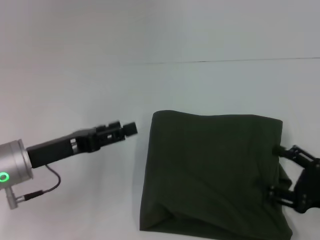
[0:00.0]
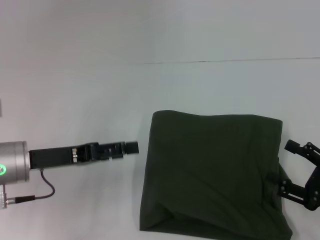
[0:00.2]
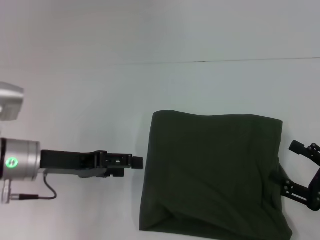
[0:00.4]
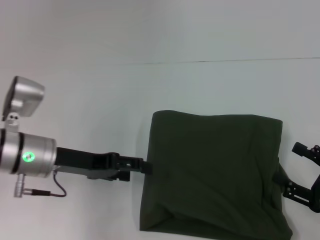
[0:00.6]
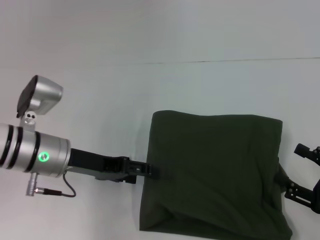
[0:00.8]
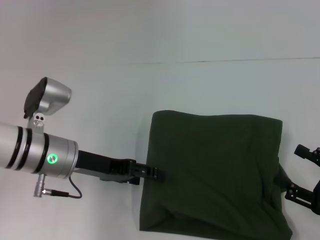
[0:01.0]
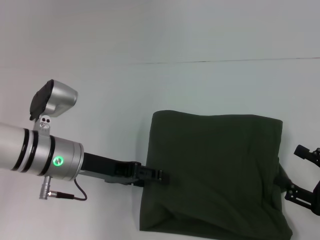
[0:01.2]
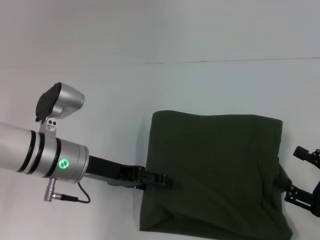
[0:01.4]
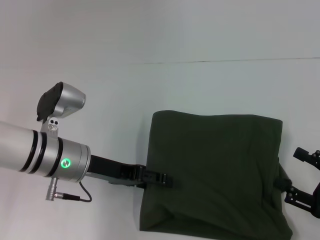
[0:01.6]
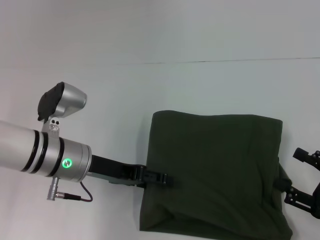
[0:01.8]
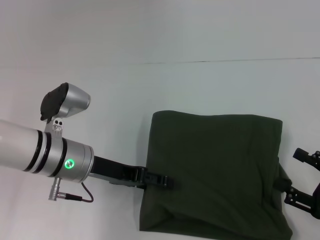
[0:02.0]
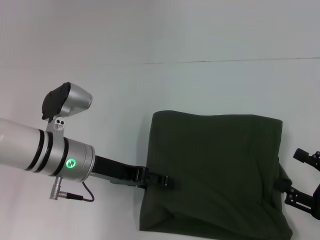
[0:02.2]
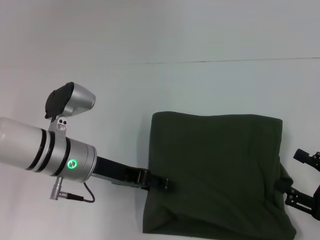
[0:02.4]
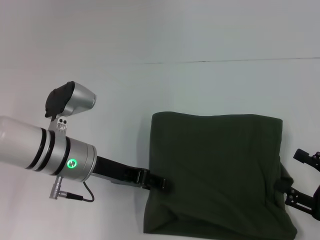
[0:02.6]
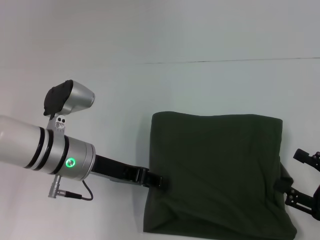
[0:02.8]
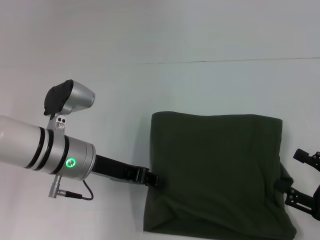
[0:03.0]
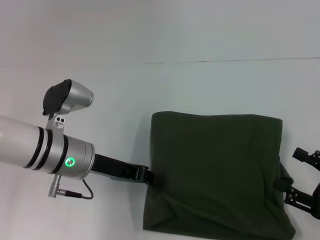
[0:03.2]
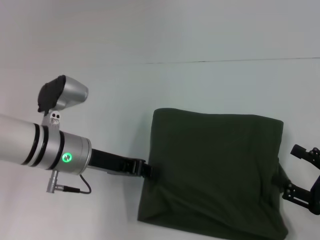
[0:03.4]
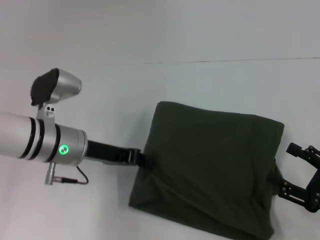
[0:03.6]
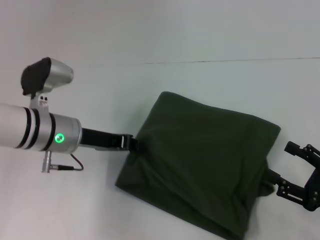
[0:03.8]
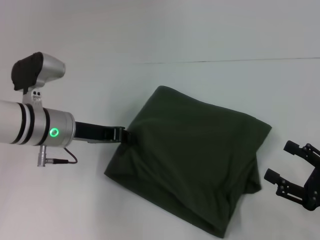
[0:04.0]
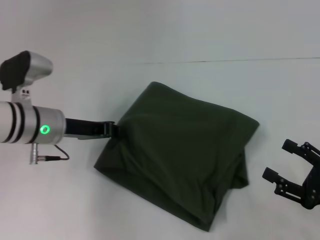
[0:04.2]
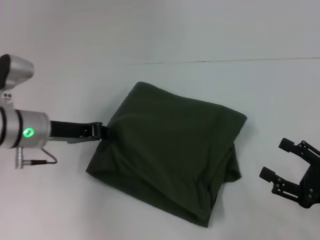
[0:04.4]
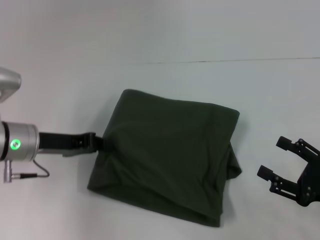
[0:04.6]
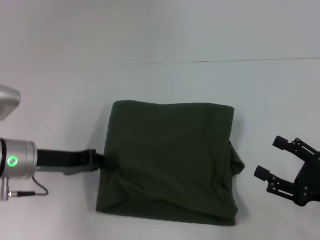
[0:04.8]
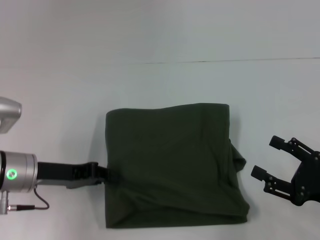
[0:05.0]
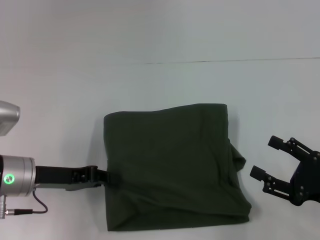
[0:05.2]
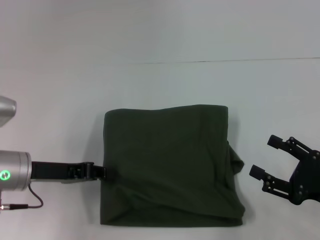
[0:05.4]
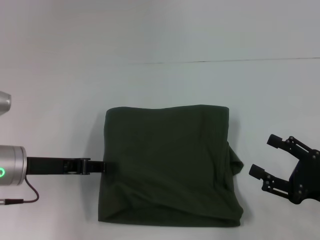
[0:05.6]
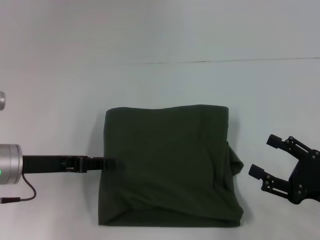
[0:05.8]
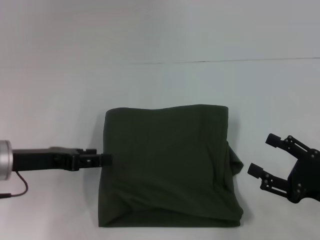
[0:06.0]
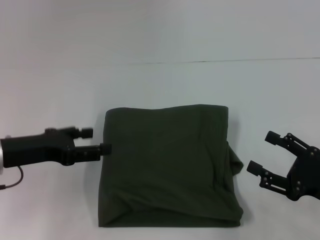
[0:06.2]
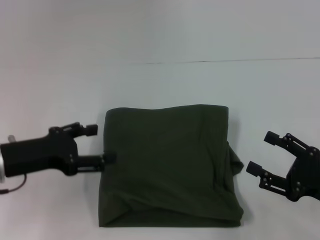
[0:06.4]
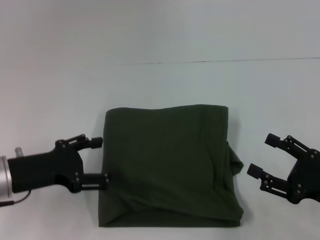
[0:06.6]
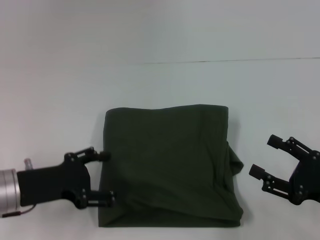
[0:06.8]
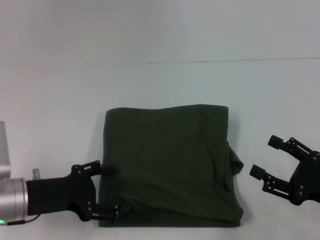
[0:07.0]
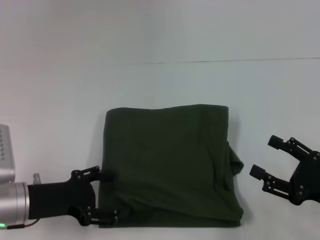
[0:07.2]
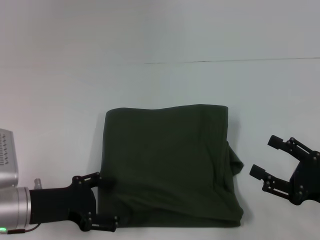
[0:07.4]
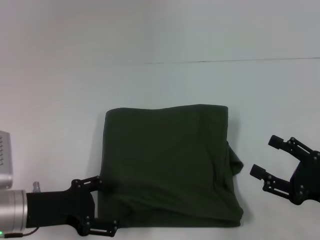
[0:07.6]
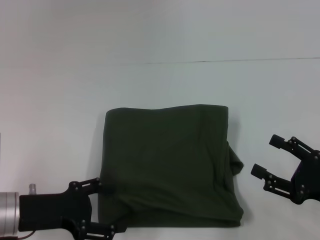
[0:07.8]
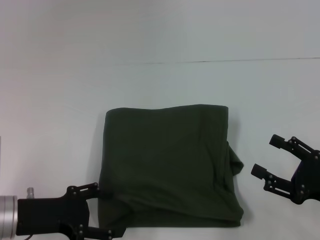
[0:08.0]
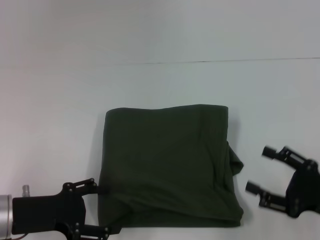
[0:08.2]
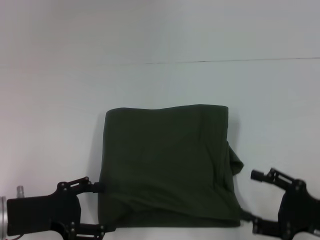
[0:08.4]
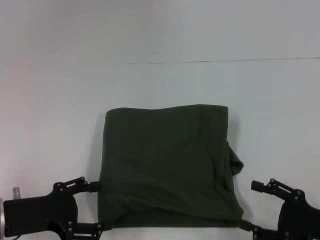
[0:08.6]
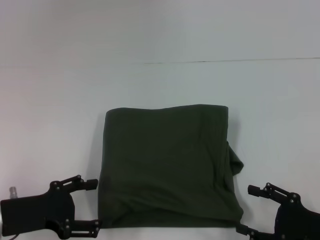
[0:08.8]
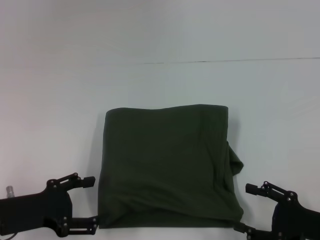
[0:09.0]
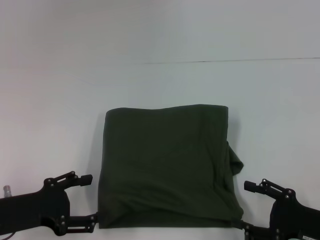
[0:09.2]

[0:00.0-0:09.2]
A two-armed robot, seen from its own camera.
0.0 to 1.6 s: The left gripper travels to the right by some 5 cm.
1.6 to 3.0 s: The left gripper closes.
3.0 to 4.6 s: The left gripper shifts some 10 cm to the left.
4.6 to 6.2 s: The left gripper moves approximately 5 cm, and opens.
6.2 to 7.6 s: The left gripper is displaced downward by about 5 cm.
7.6 to 9.2 s: The grippers stay close to where they were, moving slightly.

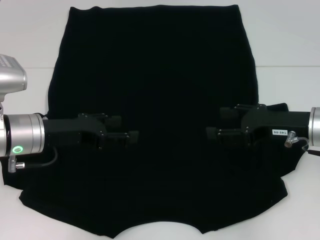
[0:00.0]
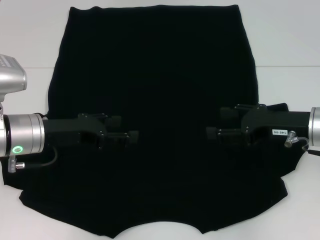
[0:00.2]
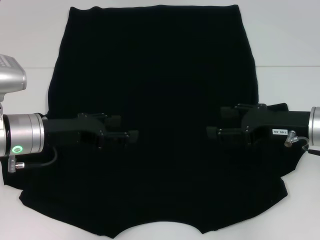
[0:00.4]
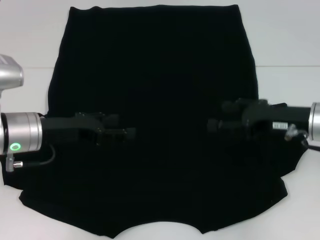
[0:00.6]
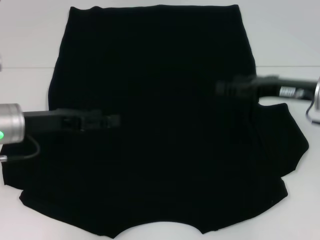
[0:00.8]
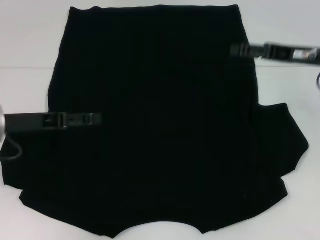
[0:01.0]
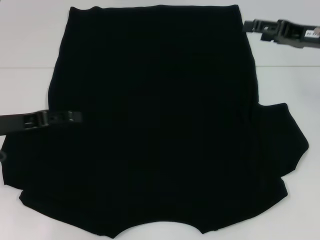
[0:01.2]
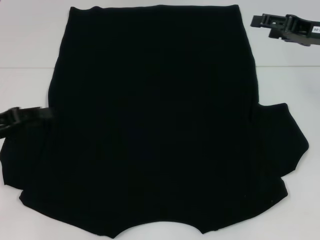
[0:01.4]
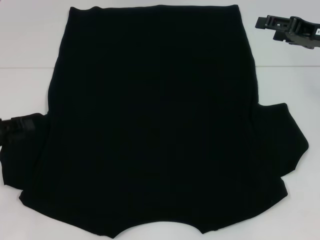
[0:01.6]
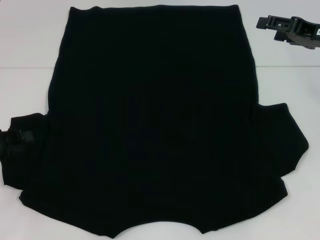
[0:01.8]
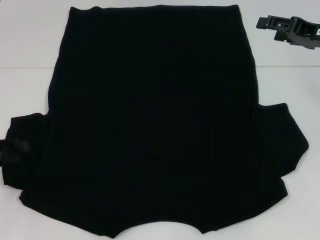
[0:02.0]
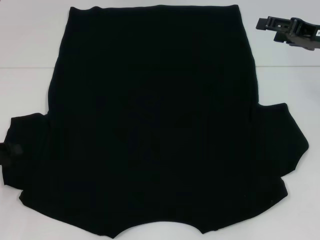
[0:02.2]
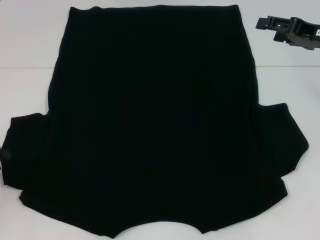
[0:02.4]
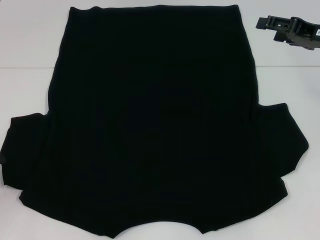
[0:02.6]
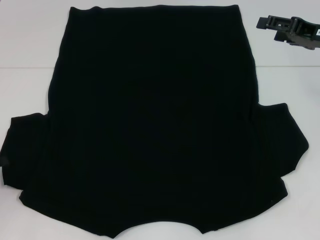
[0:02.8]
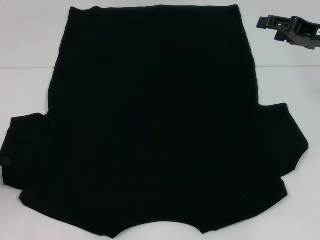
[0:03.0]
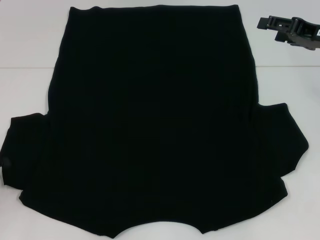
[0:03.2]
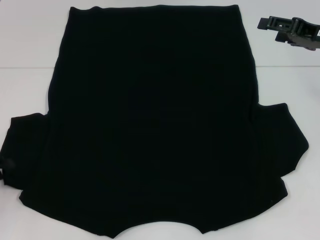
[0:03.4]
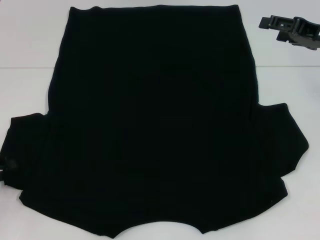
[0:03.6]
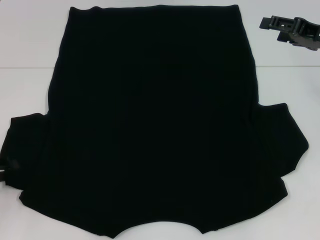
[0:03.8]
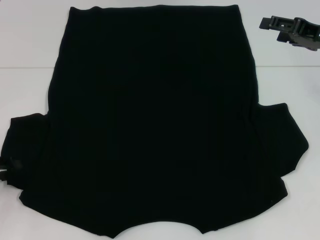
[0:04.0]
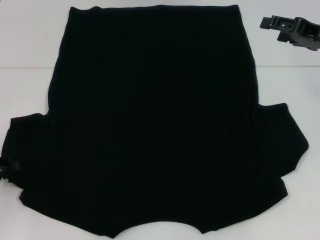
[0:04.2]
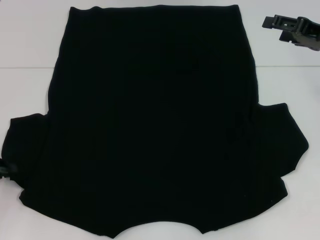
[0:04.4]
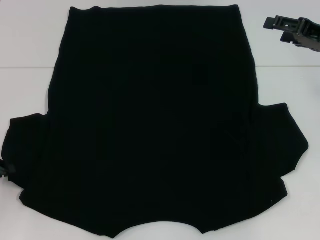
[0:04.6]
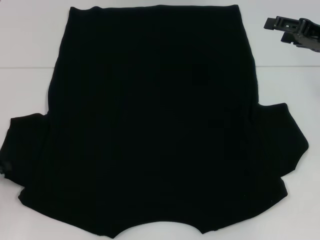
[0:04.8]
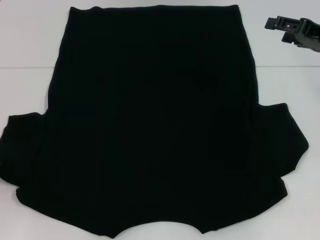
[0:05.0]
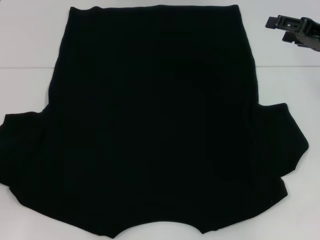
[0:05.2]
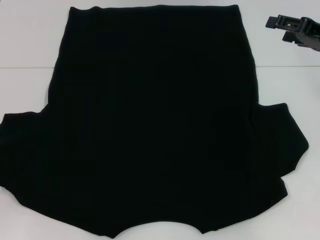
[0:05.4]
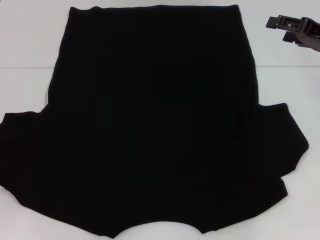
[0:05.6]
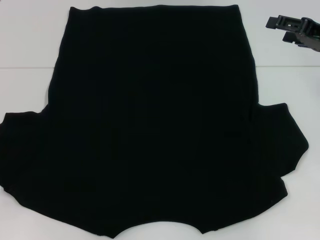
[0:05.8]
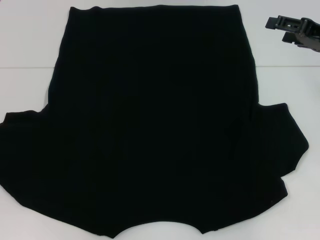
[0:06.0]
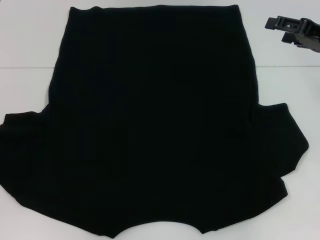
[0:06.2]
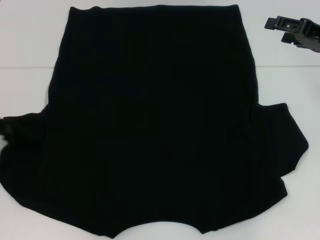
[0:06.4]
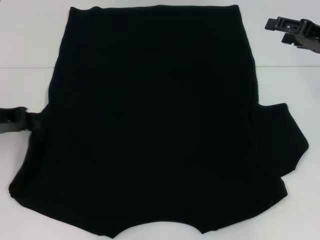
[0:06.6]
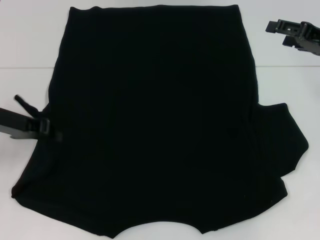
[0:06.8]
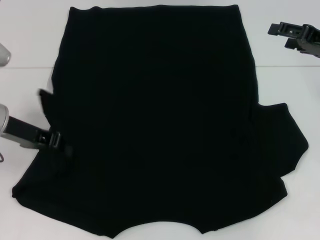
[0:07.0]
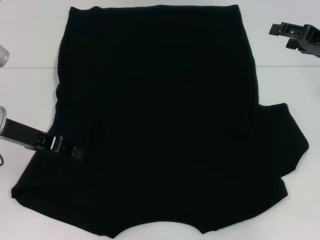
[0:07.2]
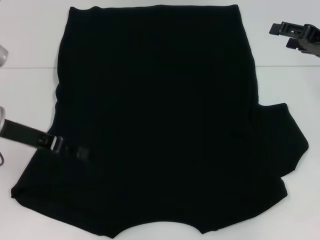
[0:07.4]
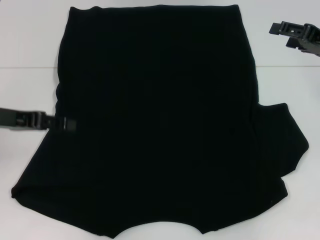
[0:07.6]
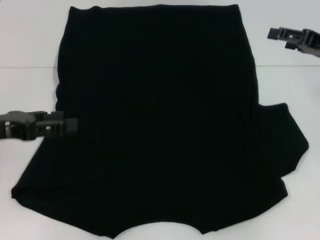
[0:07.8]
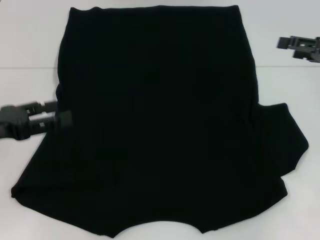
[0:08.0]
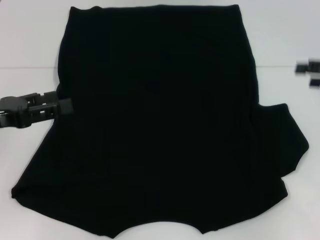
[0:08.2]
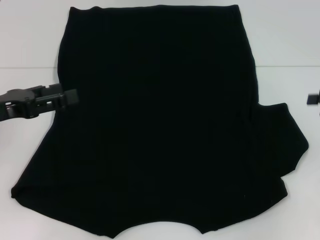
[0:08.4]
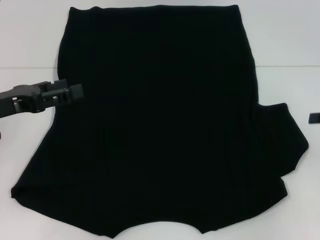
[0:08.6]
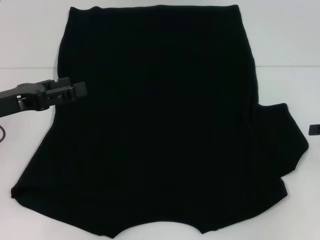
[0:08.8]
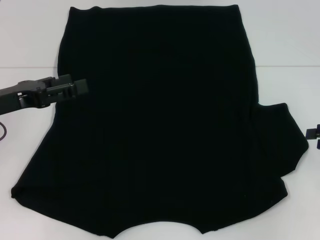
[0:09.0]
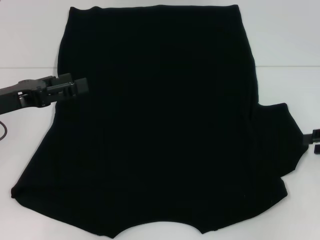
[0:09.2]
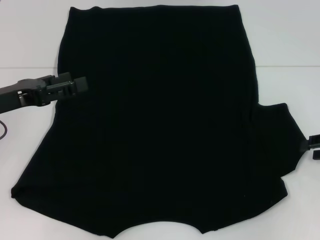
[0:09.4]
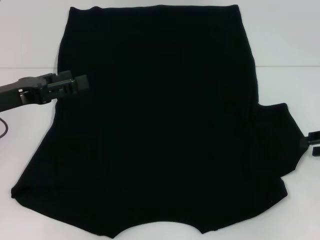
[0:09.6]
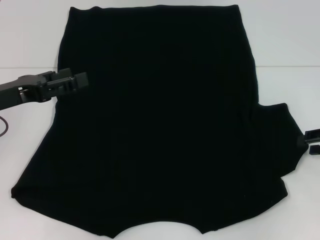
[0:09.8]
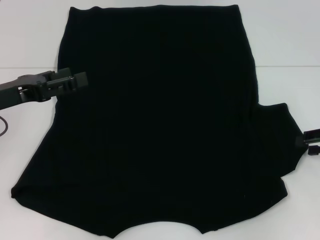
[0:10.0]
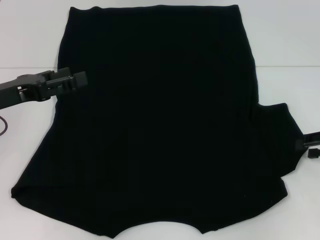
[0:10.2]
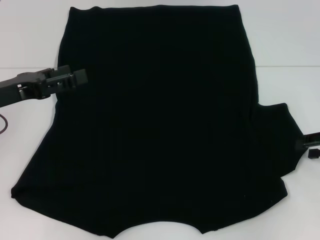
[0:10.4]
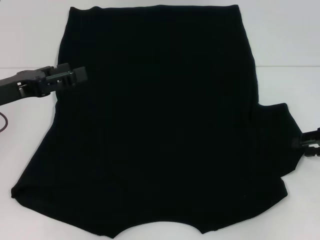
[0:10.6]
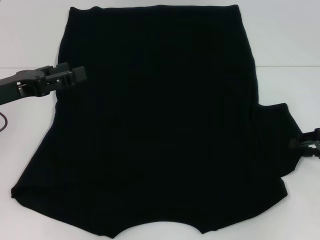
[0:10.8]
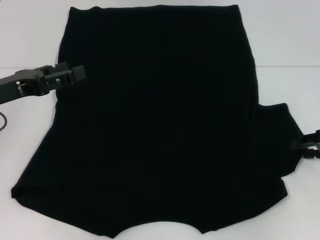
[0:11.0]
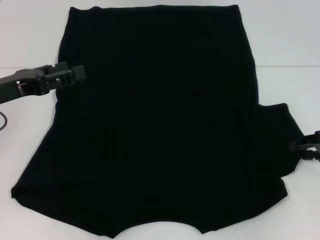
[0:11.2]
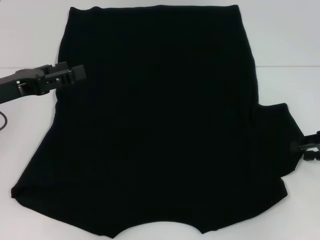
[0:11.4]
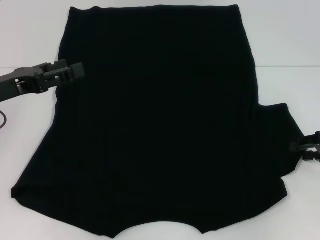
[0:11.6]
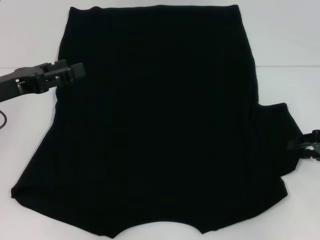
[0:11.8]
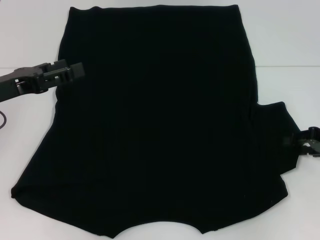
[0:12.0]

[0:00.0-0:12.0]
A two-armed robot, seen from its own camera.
Step, 0.0 to 8.0 s: Fold the bottom left sleeve with your left hand.
0.0 to 1.6 s: The right gripper goes approximately 10 cm forward and upward; the left gripper is displaced to the left by about 15 cm.
3.0 to 4.4 s: The grippers make only small movements.
4.4 to 6.0 s: The left gripper travels upward by about 5 cm.
6.0 to 7.6 s: The left gripper shifts about 10 cm to the right.
7.6 to 9.0 s: The left gripper opens its fingers. Meanwhile the right gripper heads backward and to the right, covering approximately 10 cm, and closes.
9.0 to 12.0 s: The grippers stay close to where they were, moving slightly.

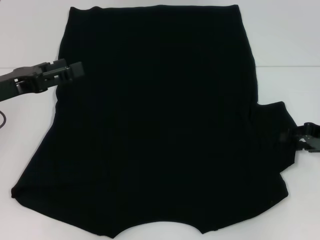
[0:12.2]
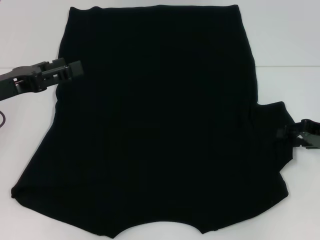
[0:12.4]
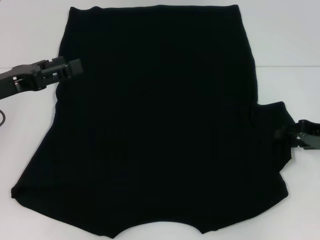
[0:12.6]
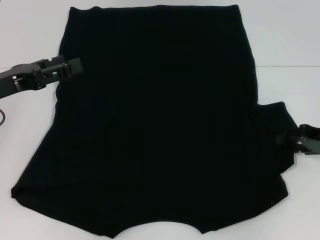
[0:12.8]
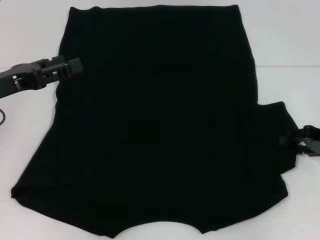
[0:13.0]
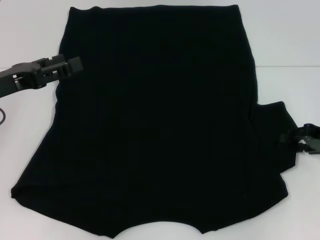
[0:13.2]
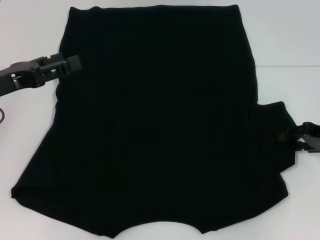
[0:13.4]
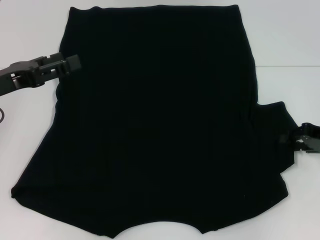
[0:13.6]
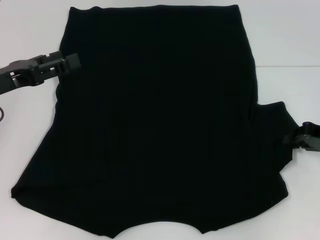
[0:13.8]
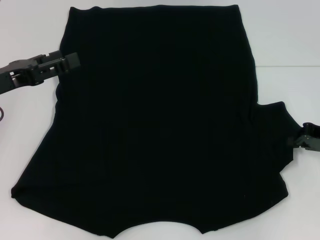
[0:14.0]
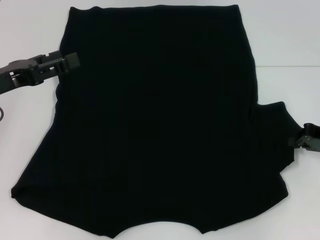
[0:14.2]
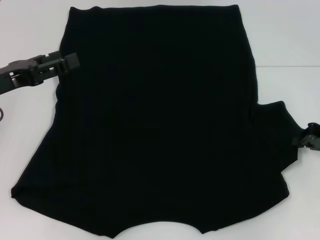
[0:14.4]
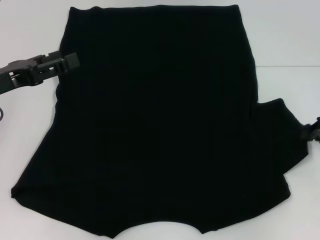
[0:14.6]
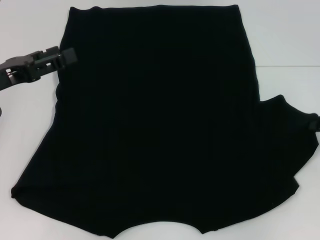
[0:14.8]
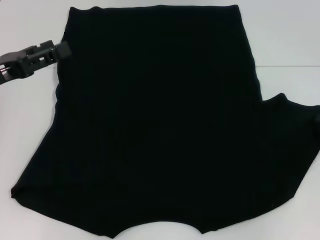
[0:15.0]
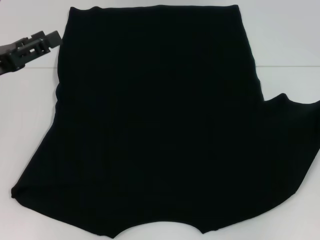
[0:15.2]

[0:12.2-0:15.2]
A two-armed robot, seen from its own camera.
12.2 to 13.8 s: Both grippers stay about where they are.
13.8 to 15.2 s: The right gripper changes place by roughly 5 cm, and closes up.
